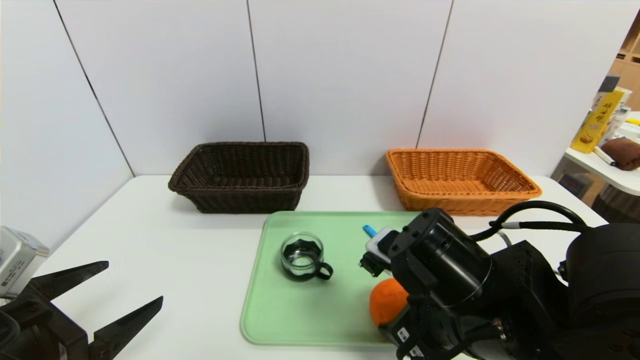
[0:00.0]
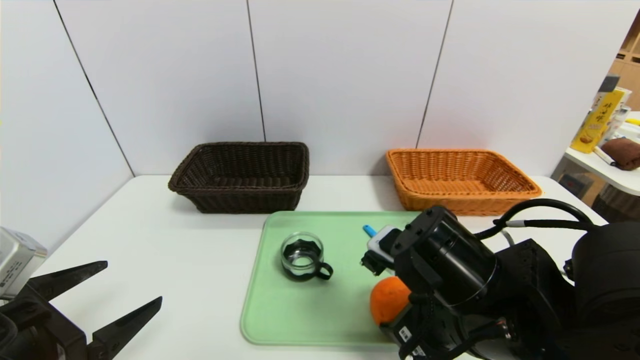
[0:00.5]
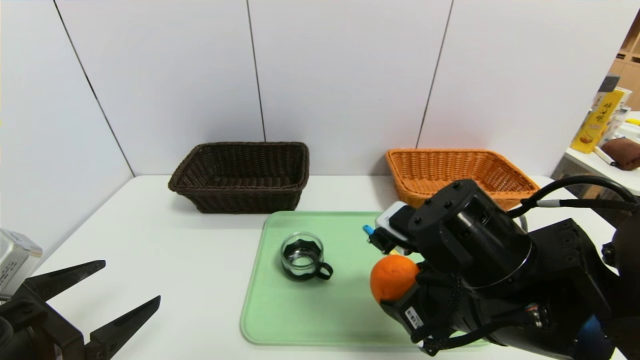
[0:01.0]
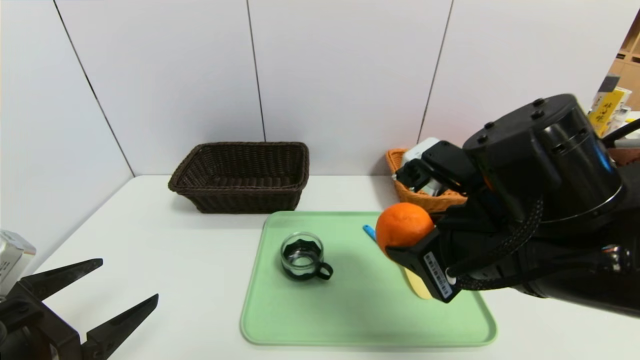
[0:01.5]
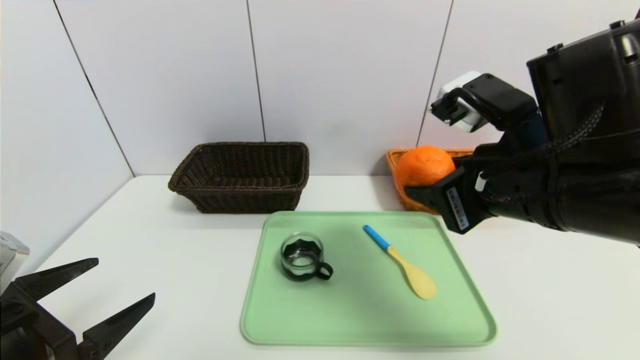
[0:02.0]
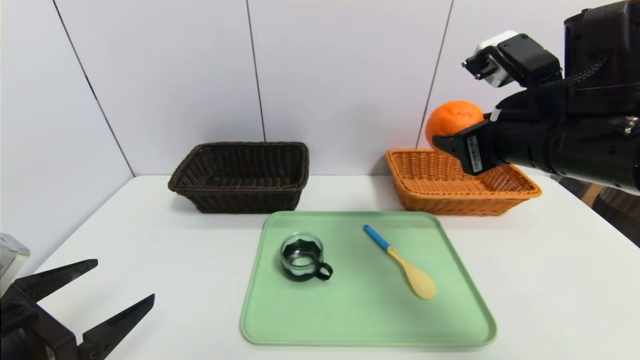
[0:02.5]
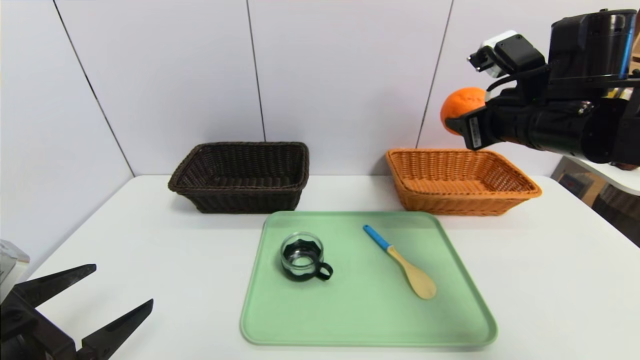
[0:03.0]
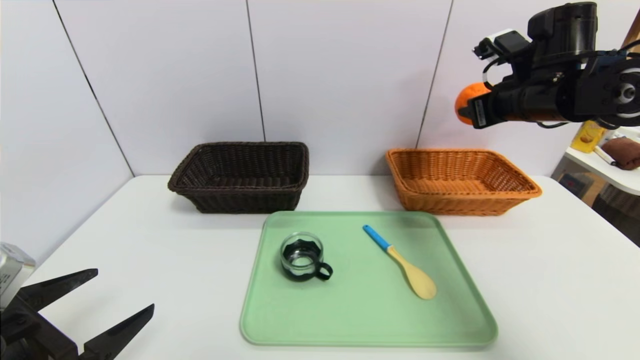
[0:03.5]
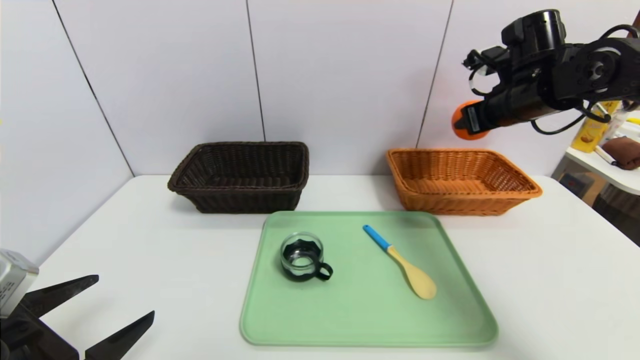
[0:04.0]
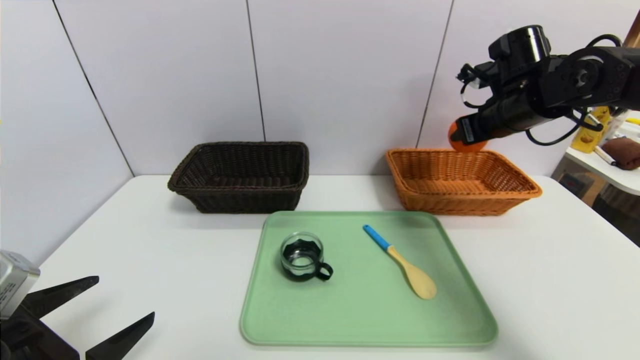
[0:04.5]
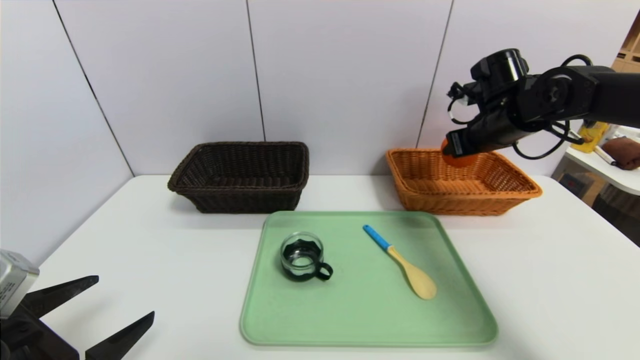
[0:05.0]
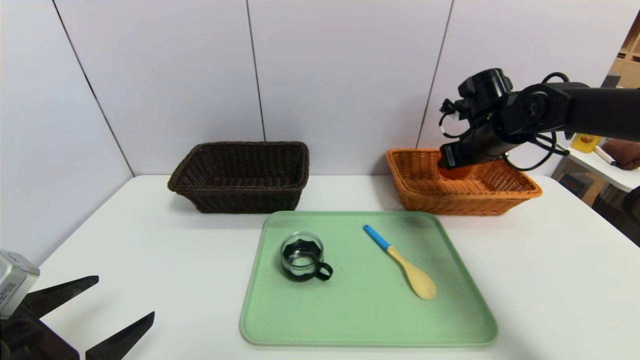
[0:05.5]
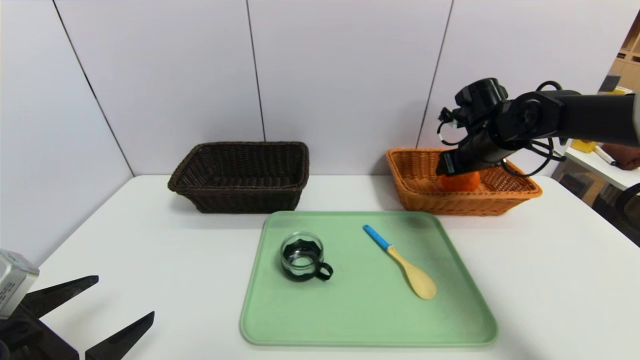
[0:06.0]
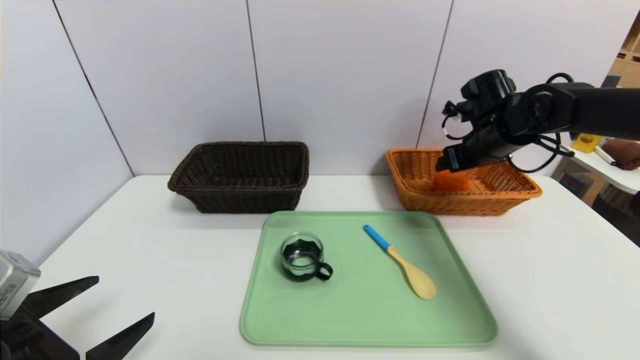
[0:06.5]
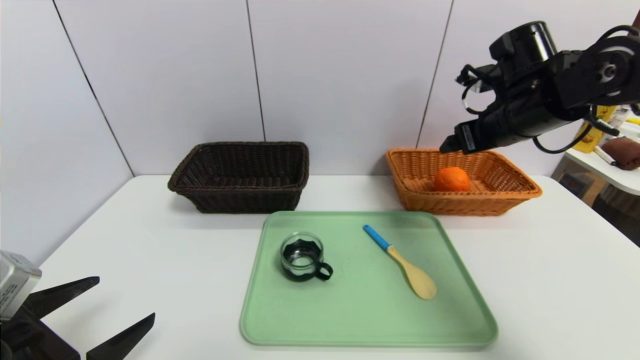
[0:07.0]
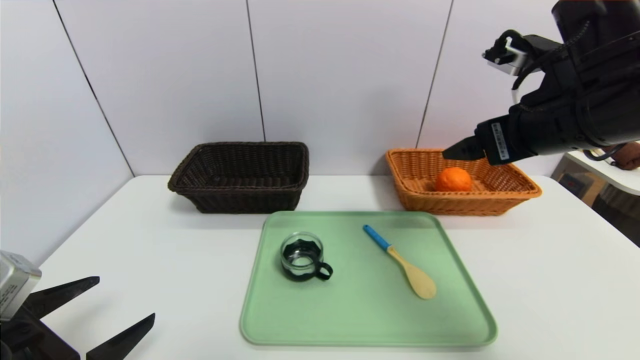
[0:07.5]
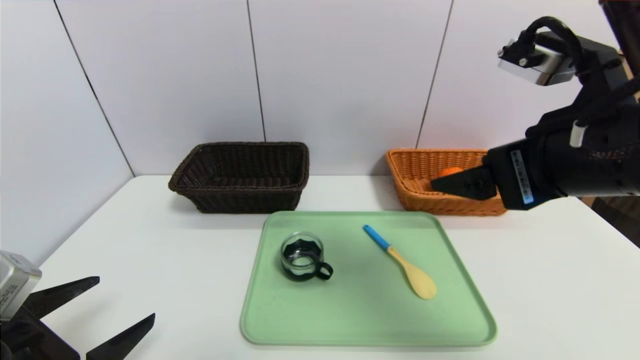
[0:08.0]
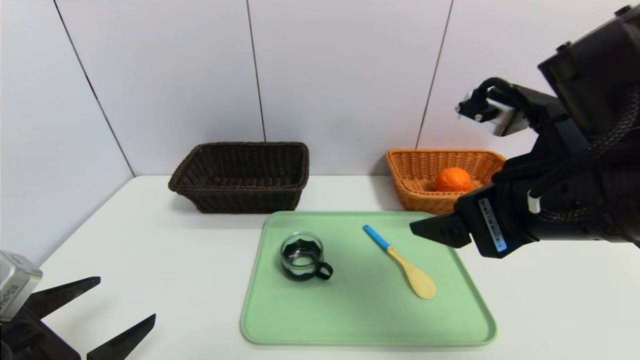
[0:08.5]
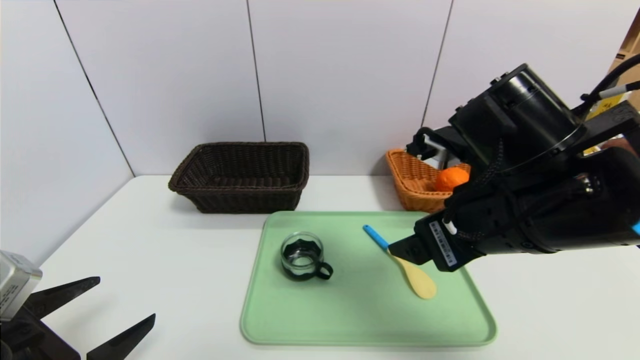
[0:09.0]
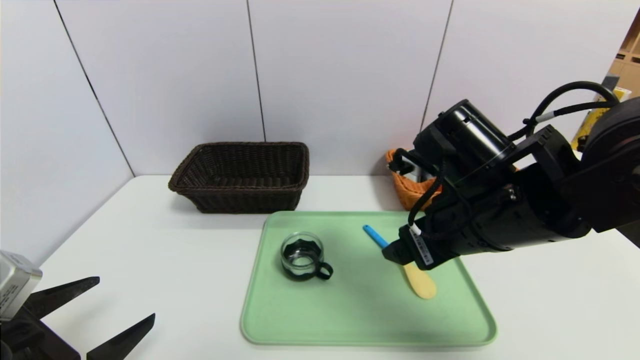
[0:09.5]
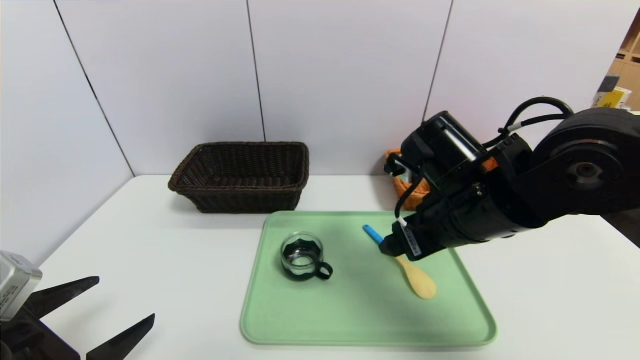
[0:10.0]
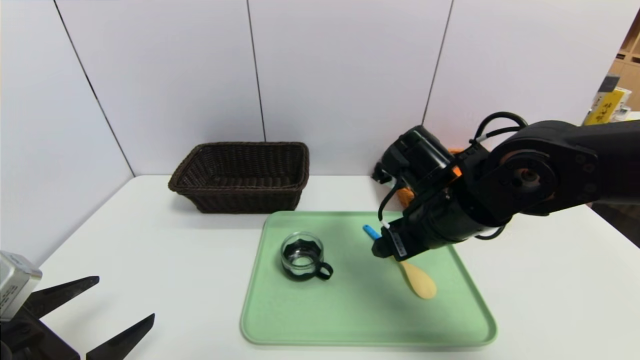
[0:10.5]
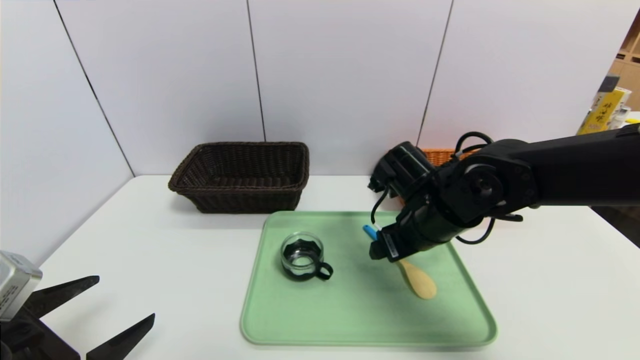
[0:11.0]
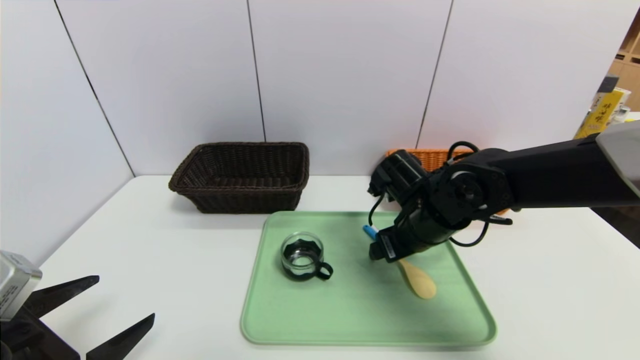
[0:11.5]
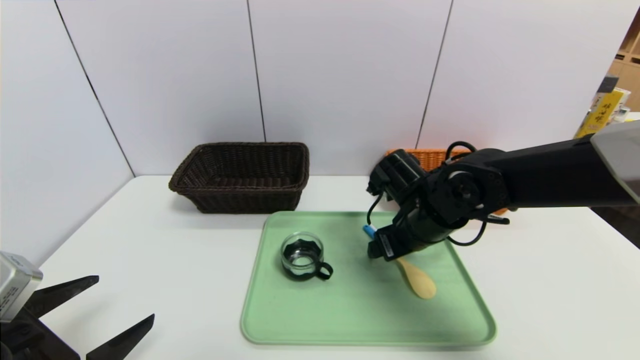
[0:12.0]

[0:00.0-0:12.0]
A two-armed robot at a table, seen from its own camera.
Task of the whole recording: place the food in the right basket with the right gripper, and place the non food items in the left basket with the left gripper.
Step, 0:00.0 to 0:06.0: Grasp the orange and put it in the right basket.
0:00.0 to 0:02.0: The right gripper moves upward, roughly 10 cm.
0:02.0 to 0:04.0: The right gripper goes about 20 cm forward and to the right.
0:04.0 to 0:06.0: The right gripper shifts approximately 10 cm downward.
0:06.0 to 0:08.0: The right gripper goes approximately 25 cm backward and upward.
0:08.0 to 0:10.0: The right gripper heads downward, forward and to the left, covering some 15 cm.
0:10.0 to 0:12.0: The right gripper travels downward and forward by some 10 cm.

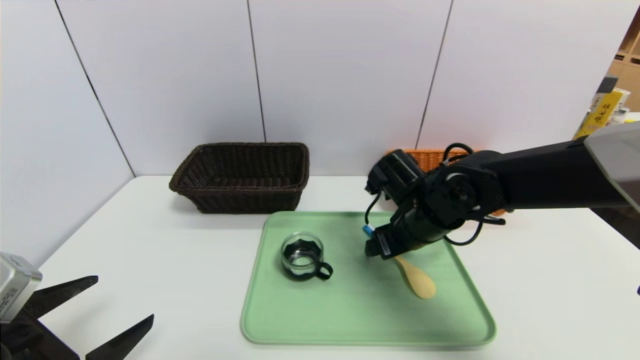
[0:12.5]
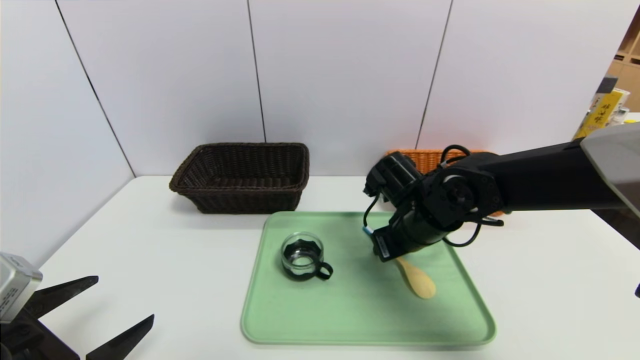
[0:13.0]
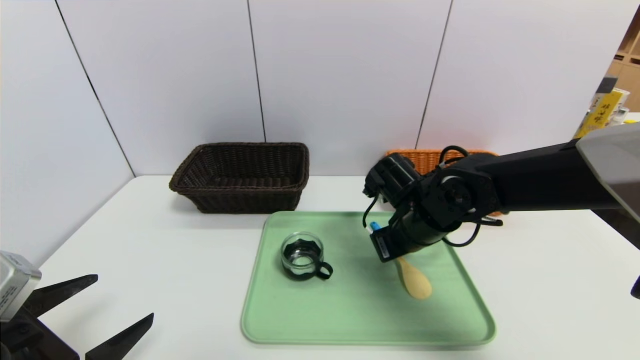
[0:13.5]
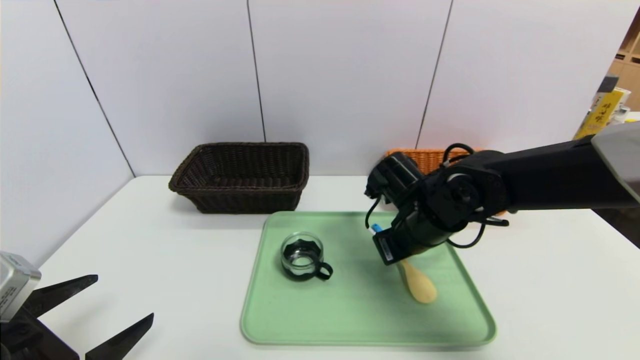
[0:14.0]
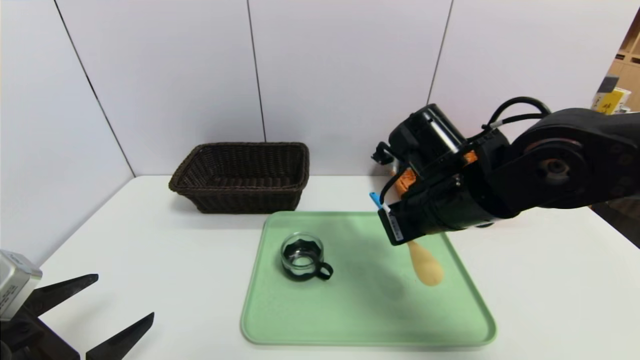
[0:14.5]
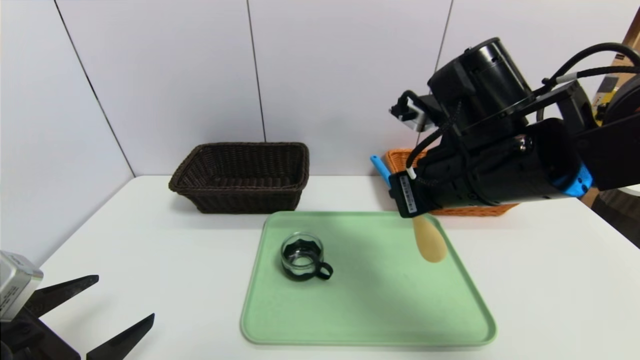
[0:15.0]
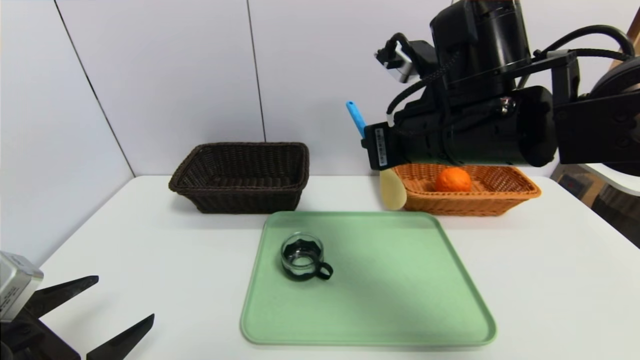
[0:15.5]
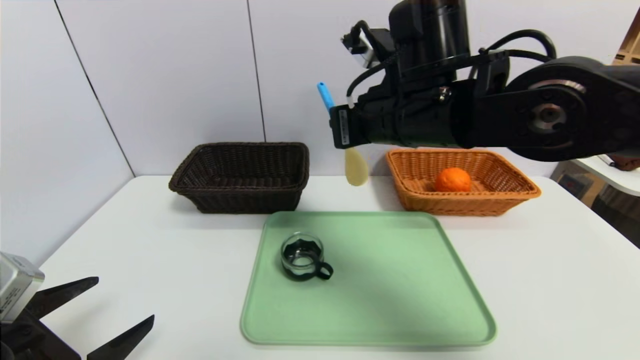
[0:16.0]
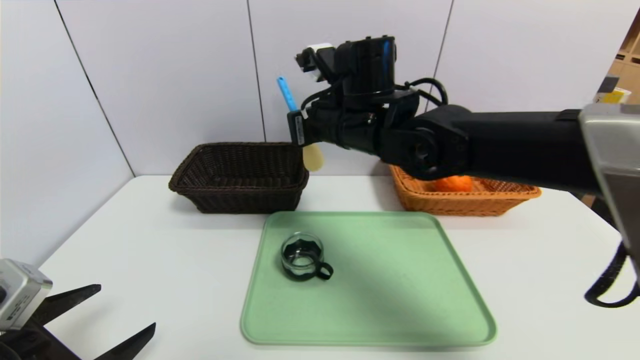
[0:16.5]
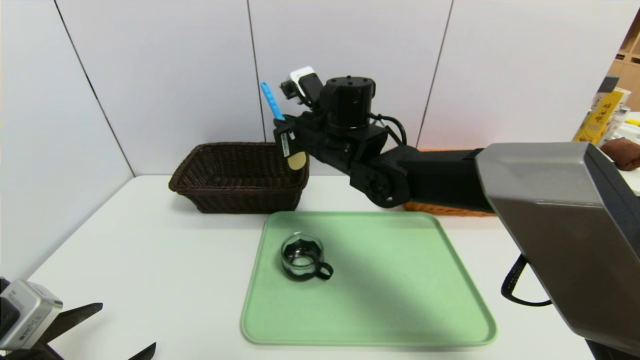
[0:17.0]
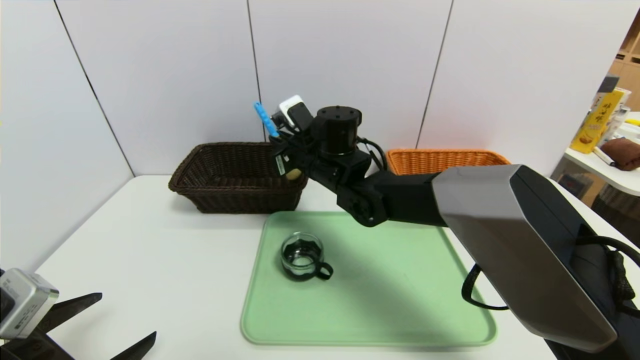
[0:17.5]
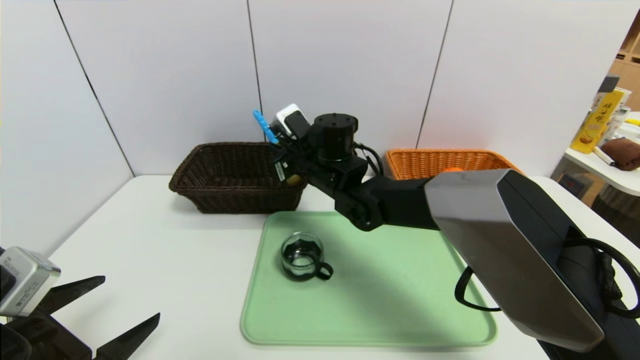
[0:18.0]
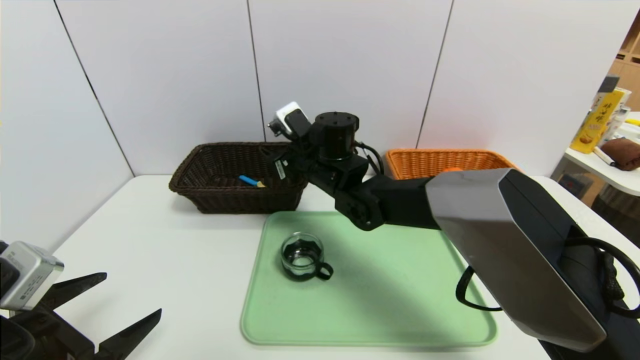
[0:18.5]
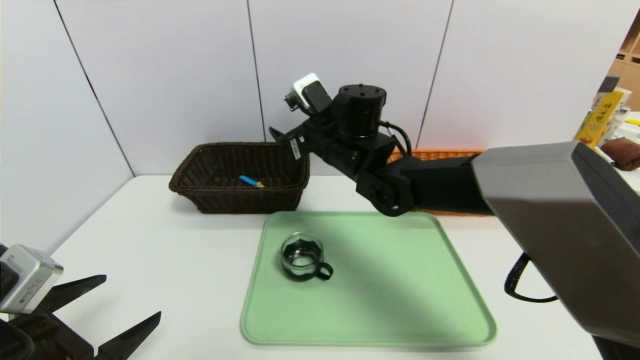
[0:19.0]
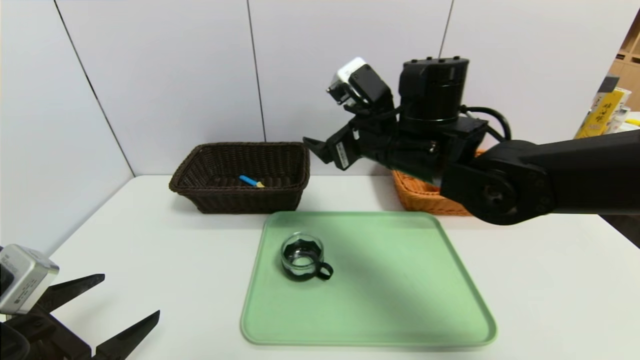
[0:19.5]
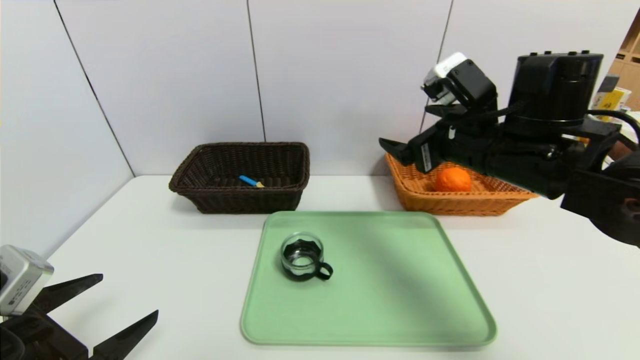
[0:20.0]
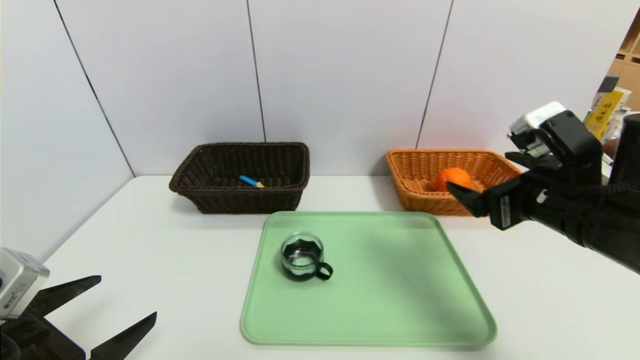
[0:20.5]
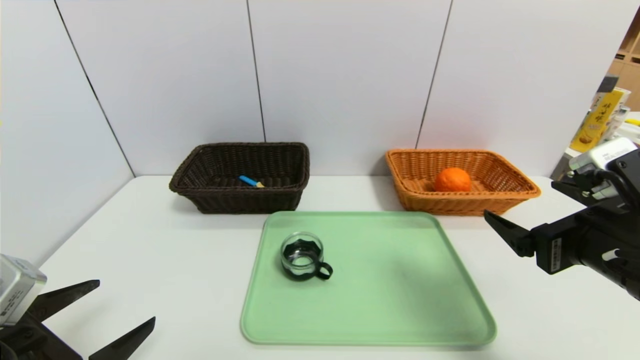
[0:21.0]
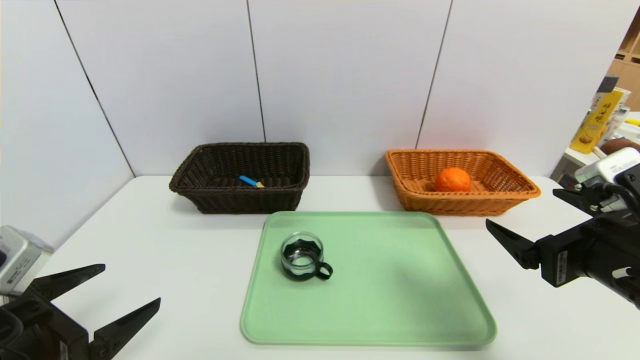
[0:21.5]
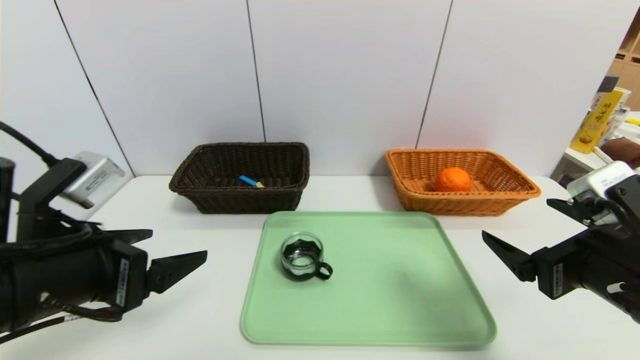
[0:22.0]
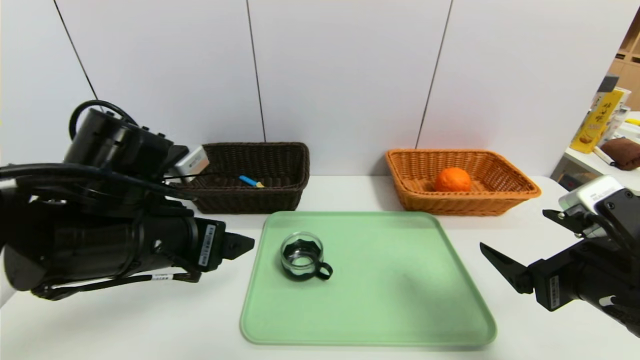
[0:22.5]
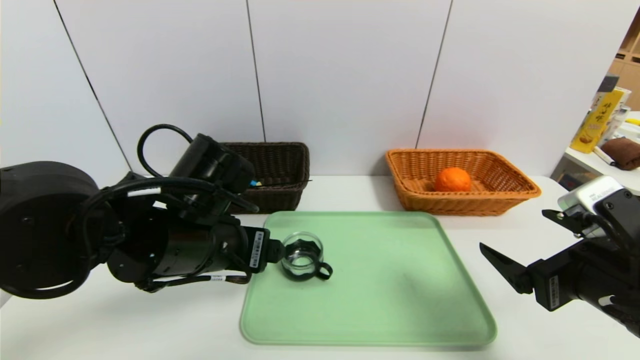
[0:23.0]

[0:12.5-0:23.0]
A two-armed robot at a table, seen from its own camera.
Task of the whole recording: place the food in the right basket with the right gripper, and place the non food items in the left basket with the left gripper.
0:12.5 to 0:14.5: The right gripper moves upward and backward, roughly 10 cm, and closes its fingers.
0:14.5 to 0:16.5: The right gripper travels to the left, forward and upward by approximately 15 cm.
0:16.5 to 0:19.0: The right gripper opens up.
0:19.0 to 0:21.0: The right gripper is displaced to the right and backward by about 35 cm.
0:21.0 to 0:23.0: The left gripper goes some 20 cm to the right and forward.
